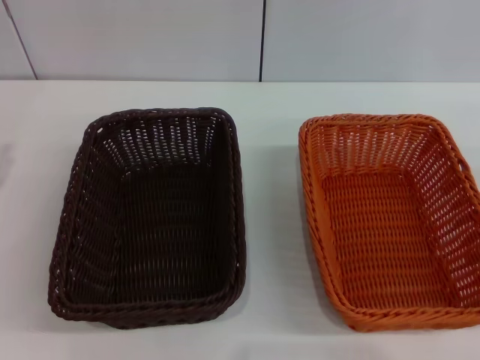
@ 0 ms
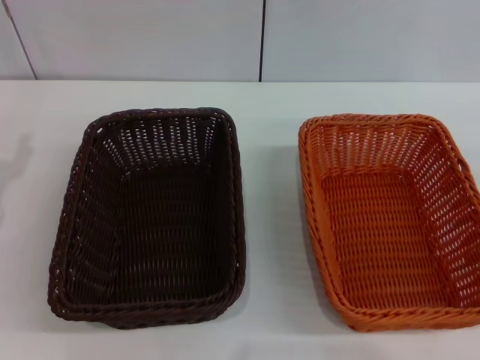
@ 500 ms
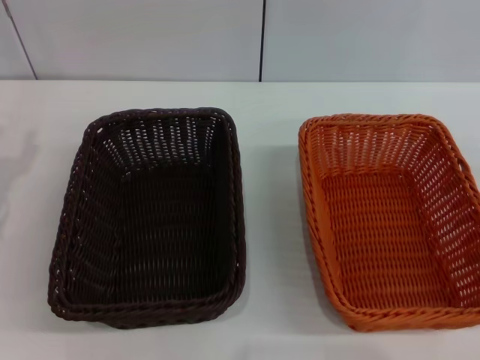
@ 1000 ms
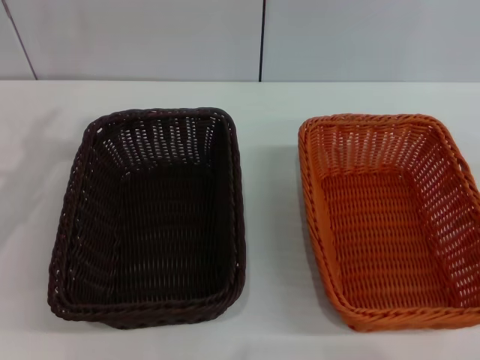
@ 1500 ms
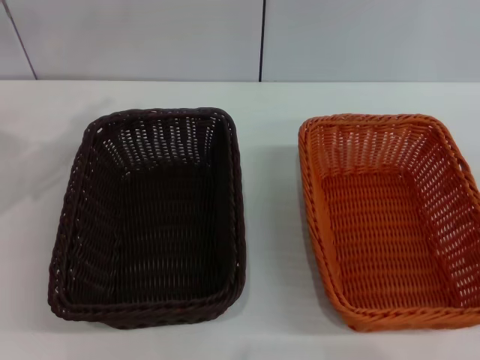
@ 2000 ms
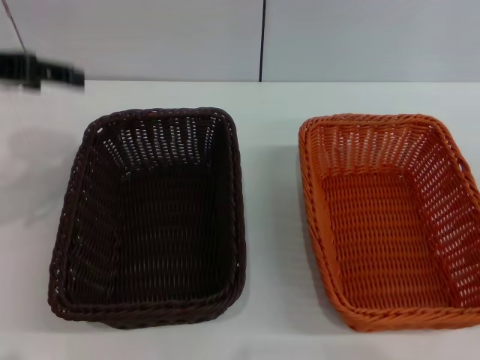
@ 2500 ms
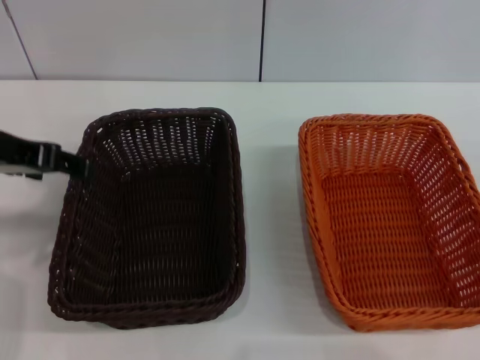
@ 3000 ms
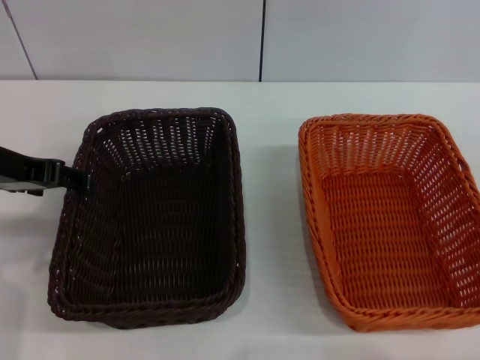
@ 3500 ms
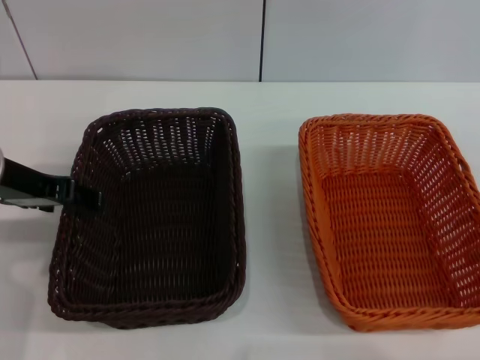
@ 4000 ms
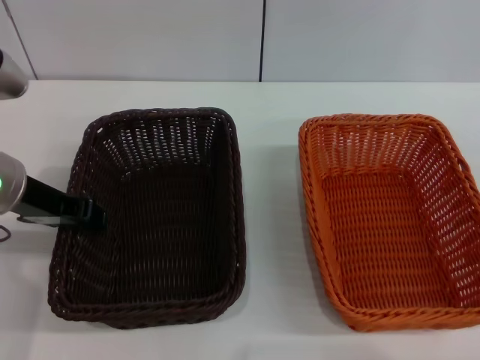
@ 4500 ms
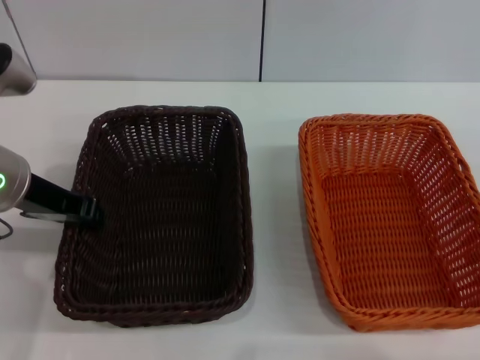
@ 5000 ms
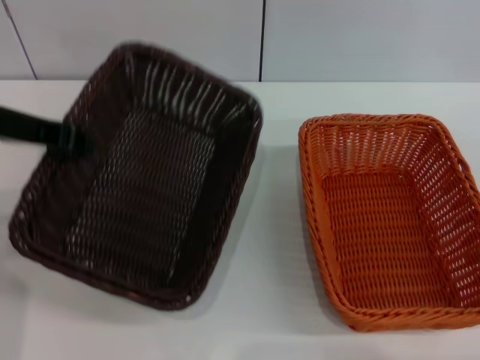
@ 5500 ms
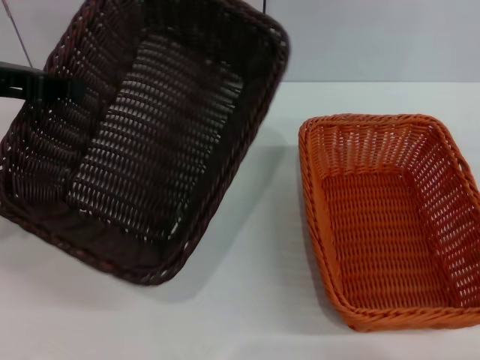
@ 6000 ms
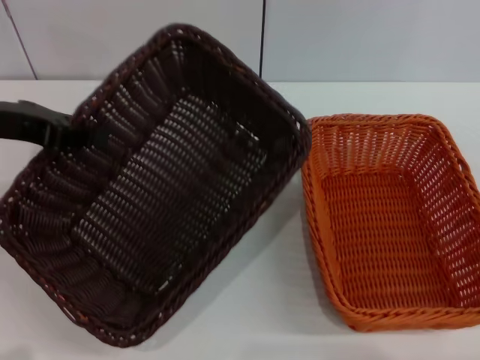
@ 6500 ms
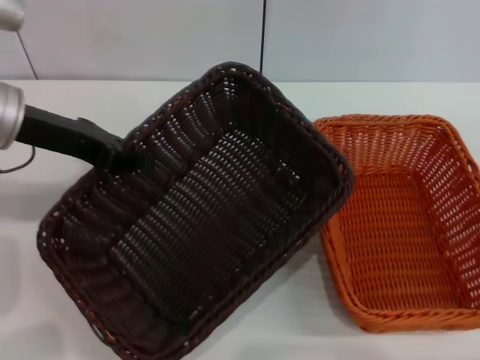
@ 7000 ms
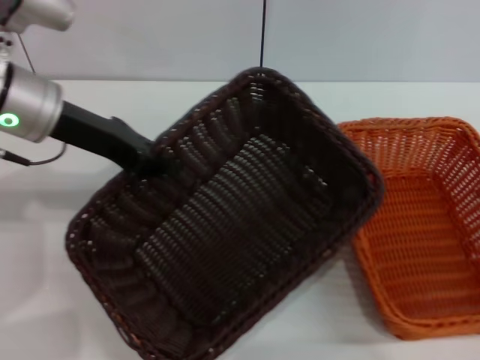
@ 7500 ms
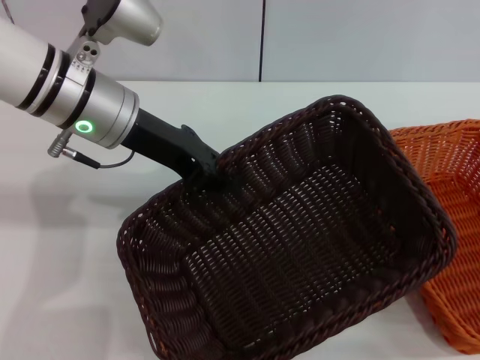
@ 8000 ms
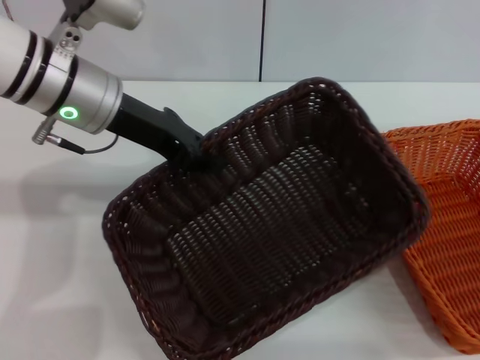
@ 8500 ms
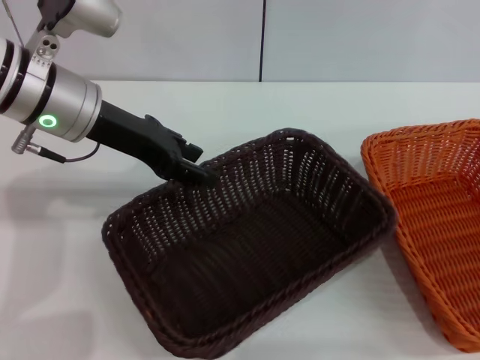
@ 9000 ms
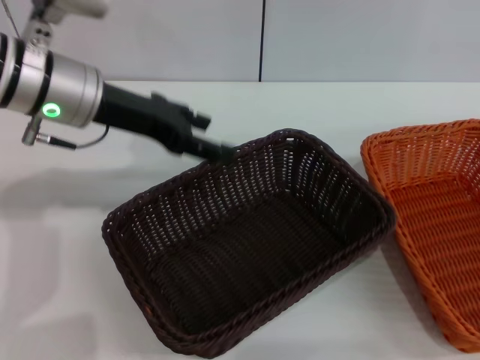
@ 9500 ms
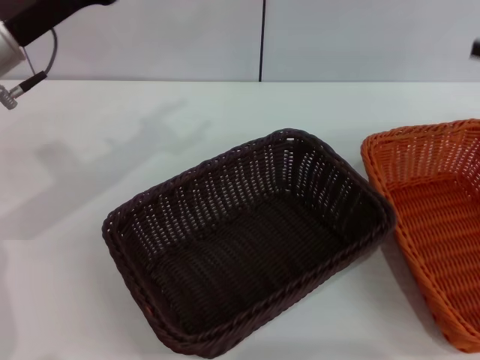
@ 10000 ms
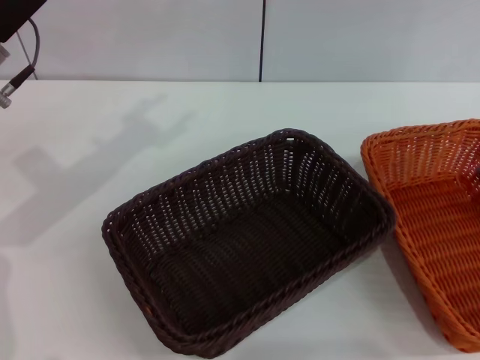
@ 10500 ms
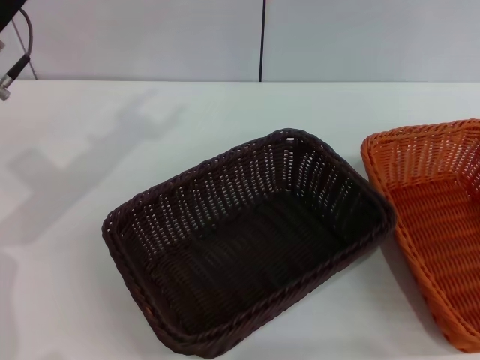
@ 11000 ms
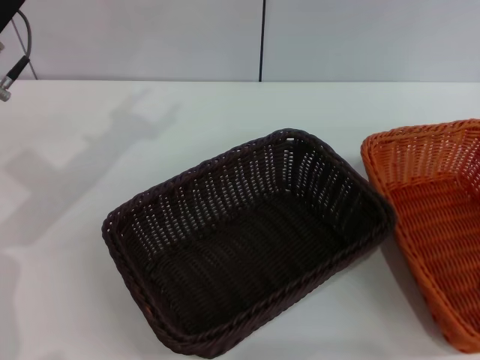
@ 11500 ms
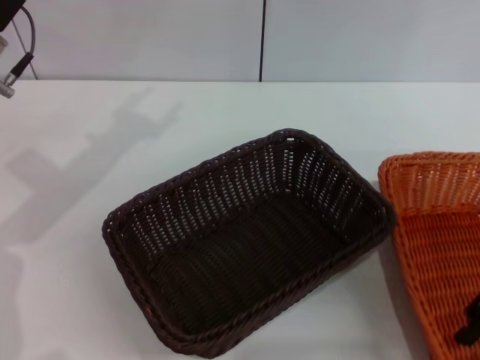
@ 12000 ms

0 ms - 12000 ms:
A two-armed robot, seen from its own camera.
Step, 0 ms - 5000 ms: Pick up the dark basket with the left gripper.
Step, 6000 ms - 9000 ms: Place the dark basket in the center of view with the left gripper.
2000 ms - 4000 ms: The left gripper goes roughly 5 cm to the right.
4000 ms - 6000 ms: The left gripper moves upward, some 5 cm, and closes up.
6000 ms - 8000 ms: The left gripper travels to the right, downward and forward by about 15 cm.
8000 ms - 10000 ms: The right gripper goes roughly 15 cm upward, forward and to the left, while the left gripper heads to the left, covering approximately 10 cm, and opens.
10000 ms - 12000 ms: The right gripper shifts approximately 15 cm to the left and backward.

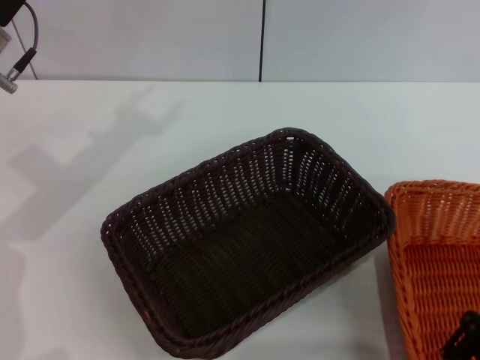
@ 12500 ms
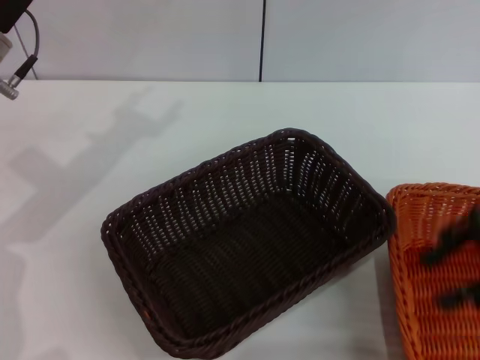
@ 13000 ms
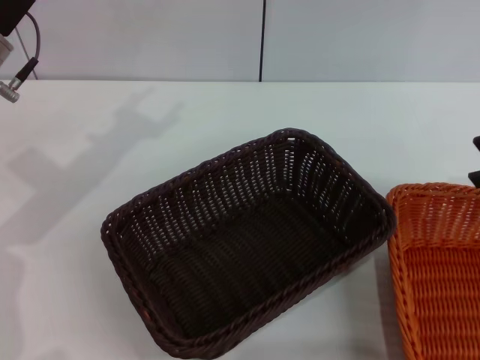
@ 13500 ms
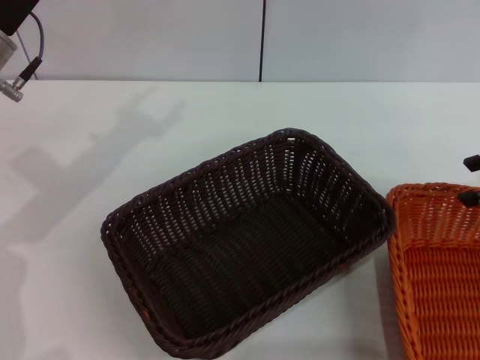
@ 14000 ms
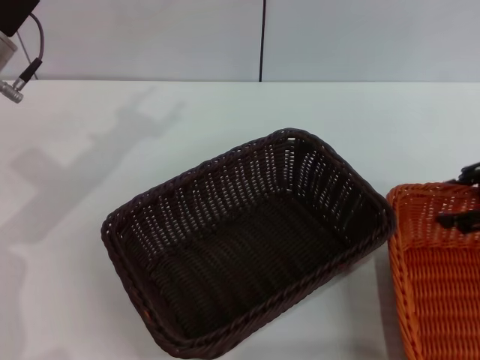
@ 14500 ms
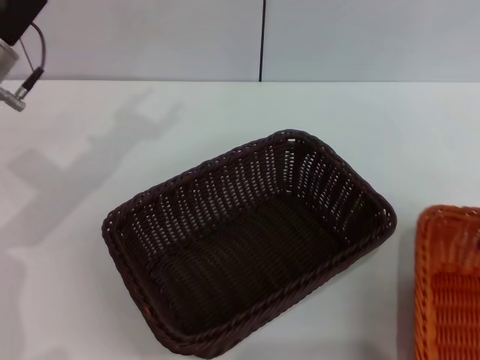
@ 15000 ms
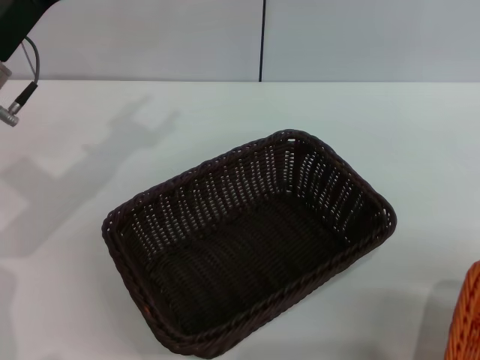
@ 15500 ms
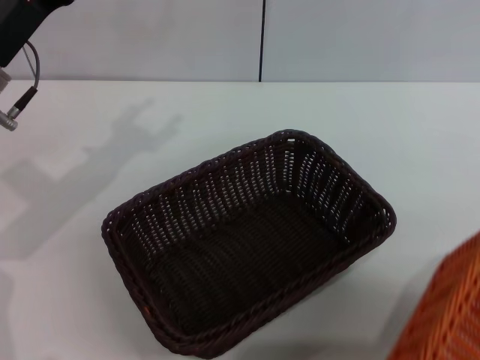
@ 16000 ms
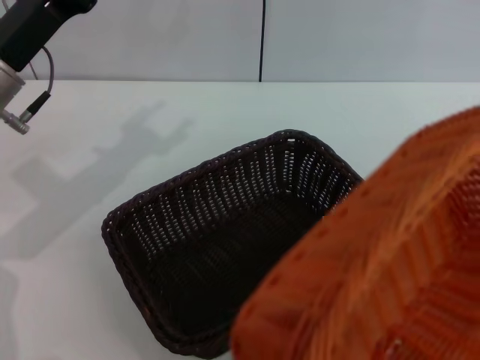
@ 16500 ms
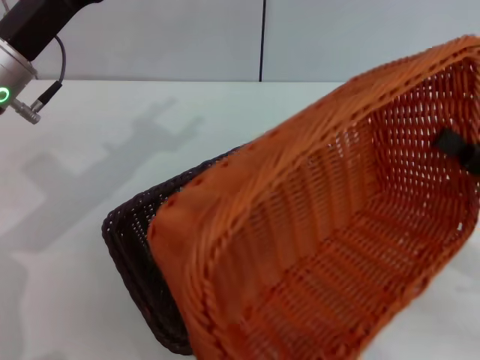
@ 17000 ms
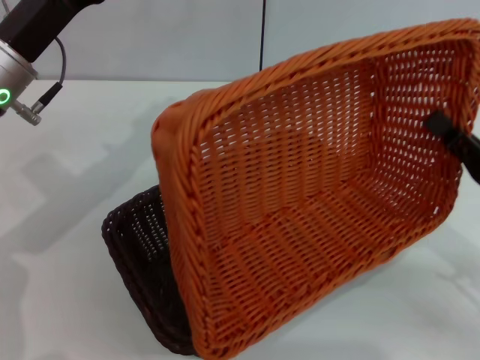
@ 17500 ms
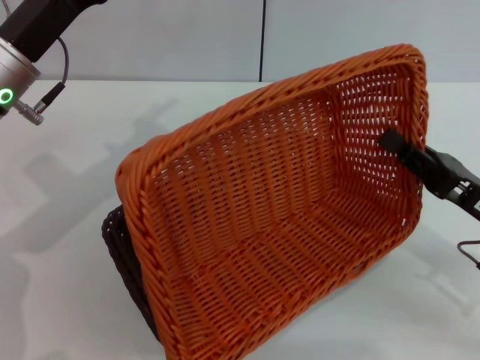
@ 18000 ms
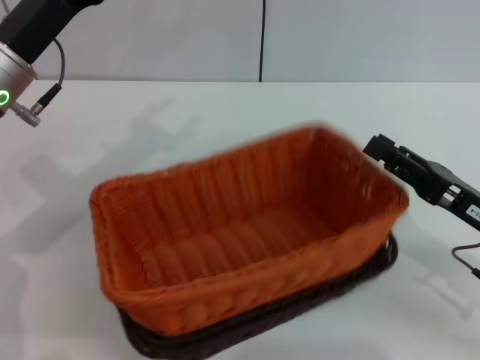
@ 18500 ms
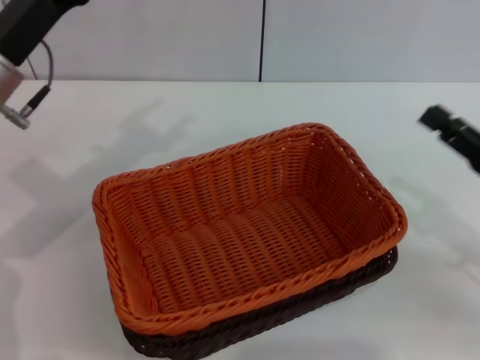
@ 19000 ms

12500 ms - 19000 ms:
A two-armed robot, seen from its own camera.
Step, 12500 ms - 15500 ms: Pick up the light basket with the right gripper.
Step, 16000 ms - 18500 ms: Place the light basket on the dark basket with the right gripper.
12500 ms - 14500 ms: The right gripper moves to the right and forward, some 10 cm.
14500 ms - 17000 ms: The right gripper moves backward, about 10 cm, and closes its fingers.
17000 ms - 19000 ms: The right gripper opens up.

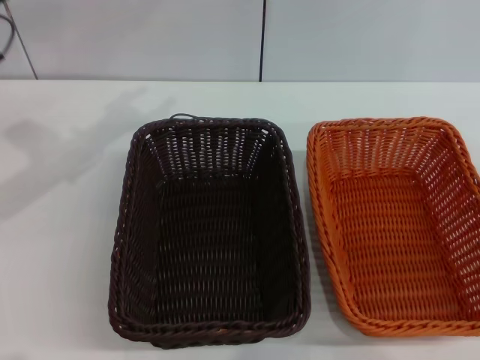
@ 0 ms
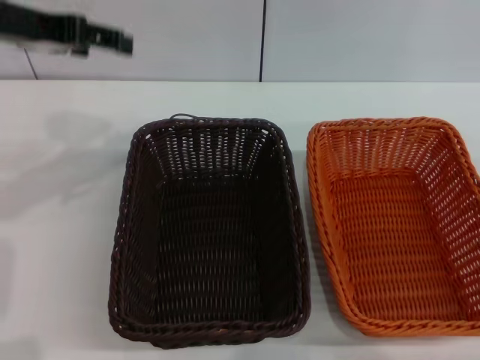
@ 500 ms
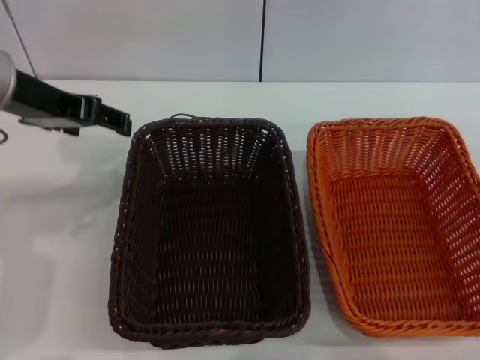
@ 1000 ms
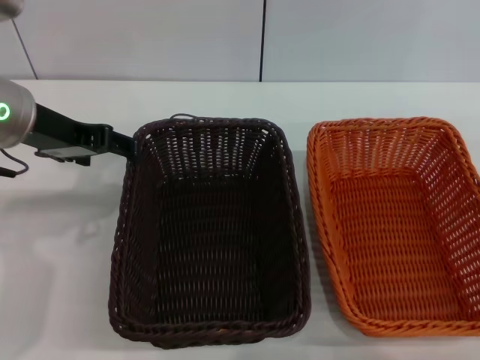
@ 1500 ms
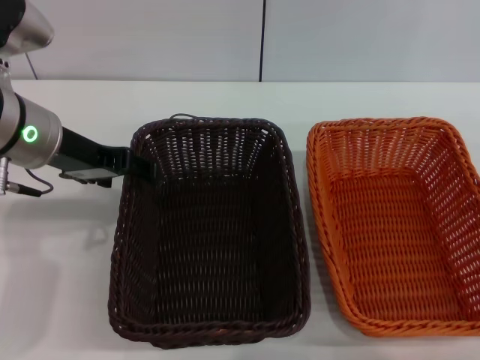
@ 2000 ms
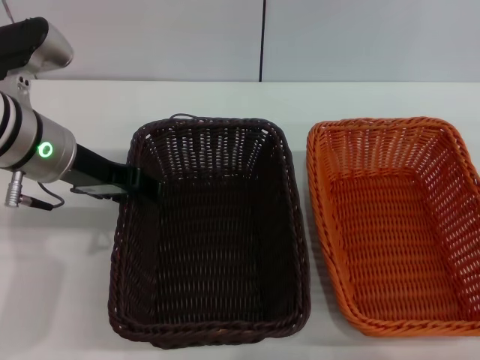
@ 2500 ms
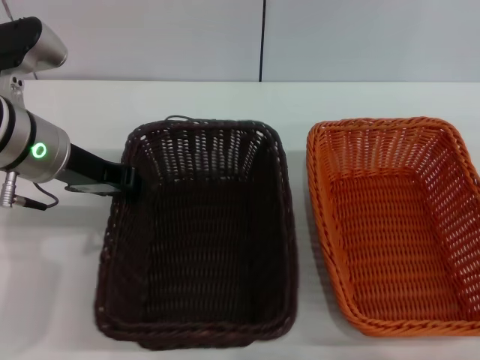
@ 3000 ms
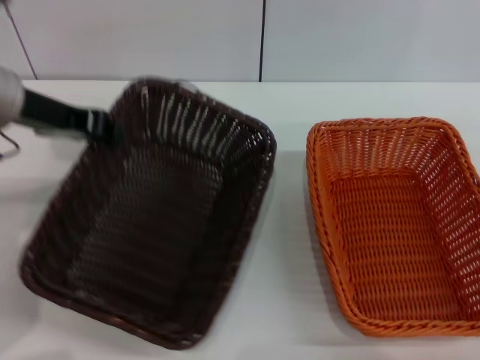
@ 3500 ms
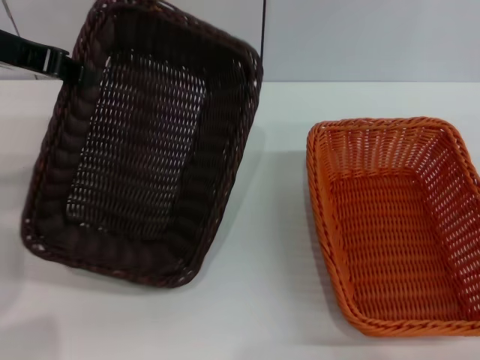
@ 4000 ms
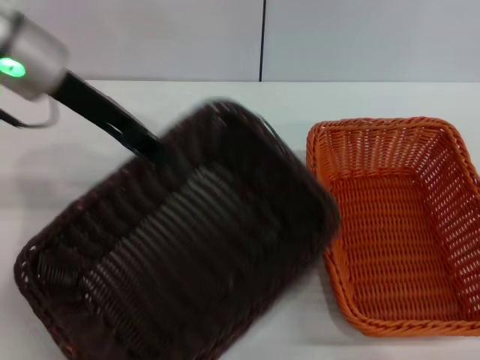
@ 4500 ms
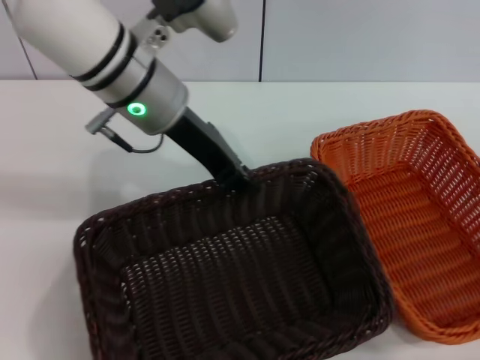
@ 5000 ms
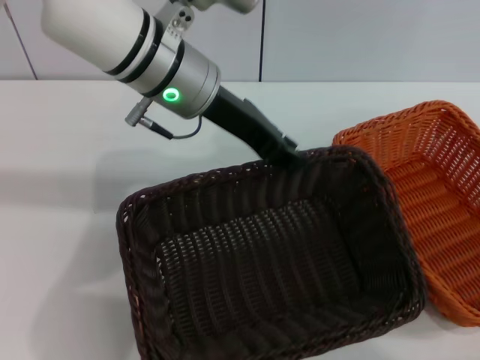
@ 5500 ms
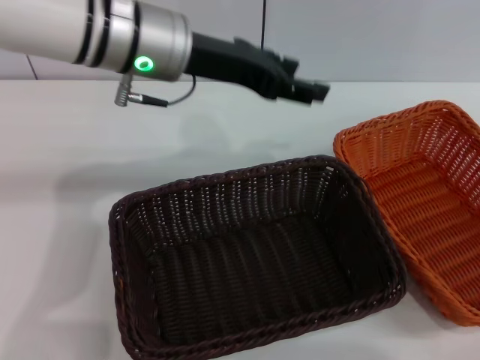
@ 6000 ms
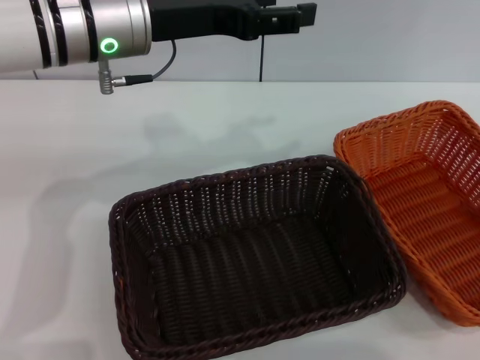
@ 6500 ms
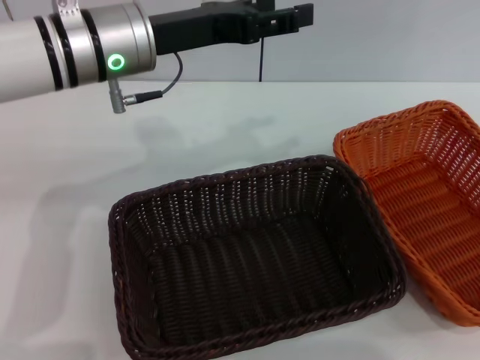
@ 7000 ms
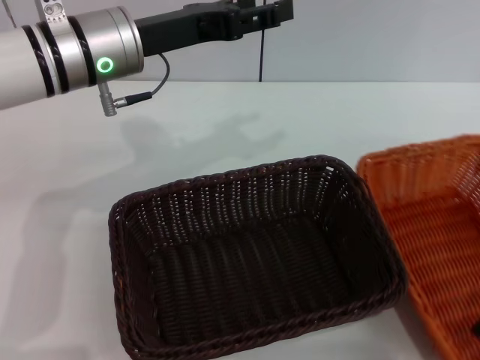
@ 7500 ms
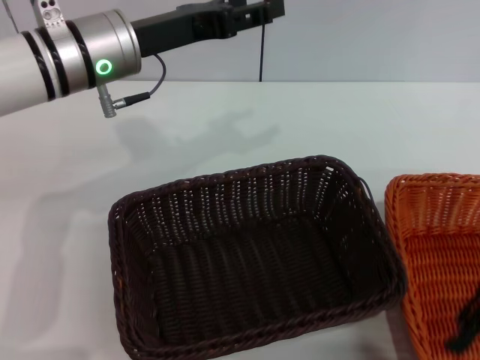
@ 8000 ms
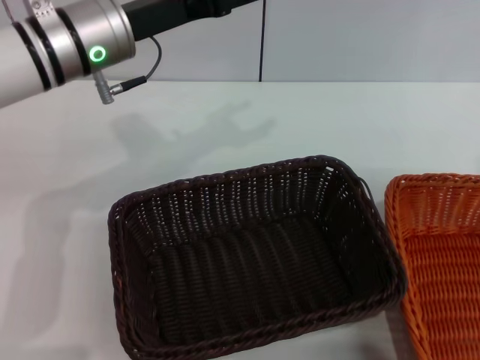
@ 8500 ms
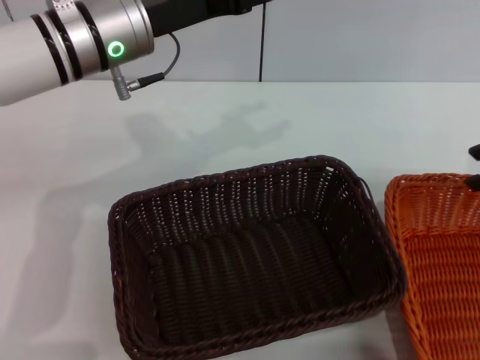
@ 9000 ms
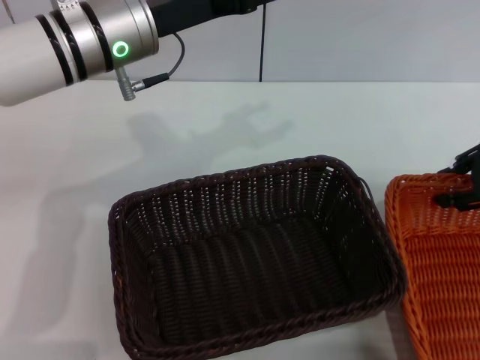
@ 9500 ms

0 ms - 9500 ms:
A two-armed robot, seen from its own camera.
Step, 0 ms - 3000 ms: Pick up the dark basket with the left gripper.
Step, 3500 ms - 5500 ms: Place the dark basket in the center of view with the left gripper.
0 ms - 2000 ms: The left gripper heads to the right, covering approximately 5 cm, and moves approximately 5 cm upward and comes back, while the right gripper changes place by some 5 cm.
2000 ms - 4000 ms: The left gripper is displaced upward and to the left by about 10 cm, and closes its fingers.
4000 ms - 5500 ms: The left gripper is displaced to the right by about 20 cm.
5500 ms - 7500 ms: The left gripper heads to the left, covering about 5 cm, and opens; the right gripper travels to the left and upward by some 15 cm.
7500 ms - 9500 ms: The right gripper moves forward, roughly 10 cm.